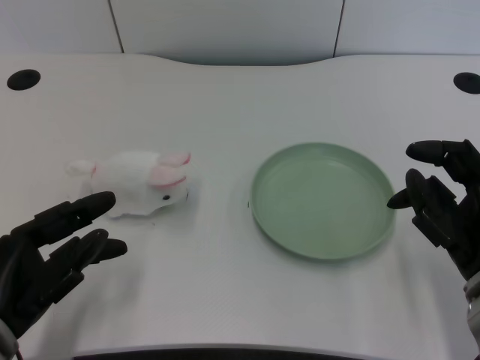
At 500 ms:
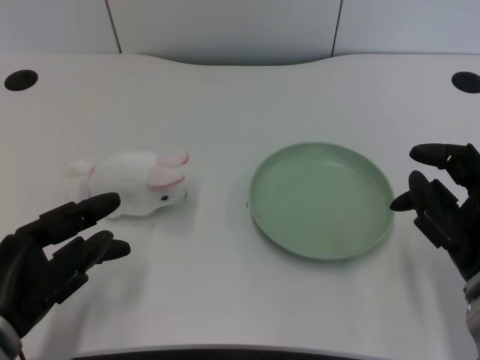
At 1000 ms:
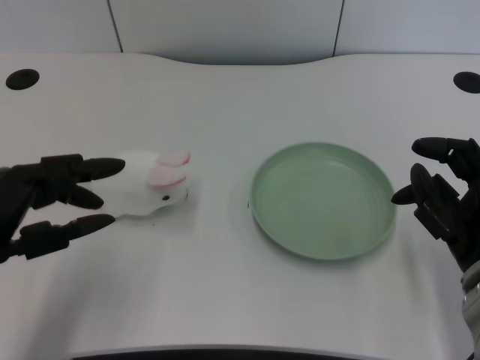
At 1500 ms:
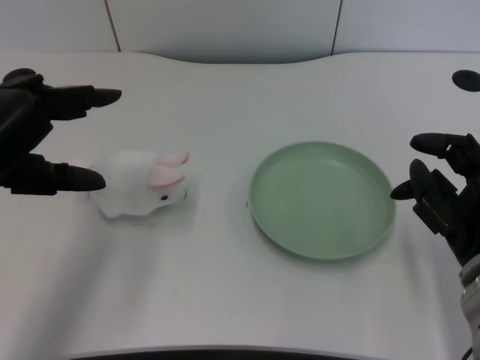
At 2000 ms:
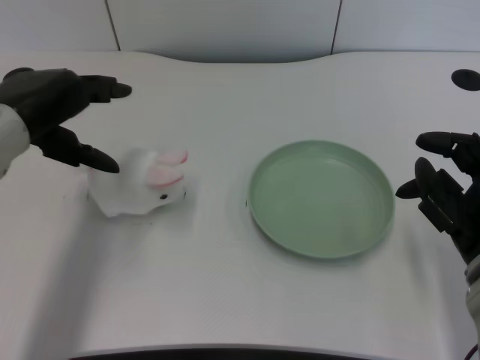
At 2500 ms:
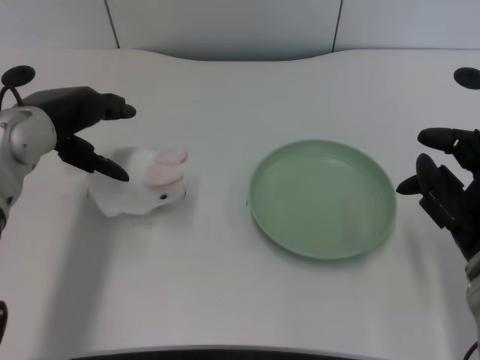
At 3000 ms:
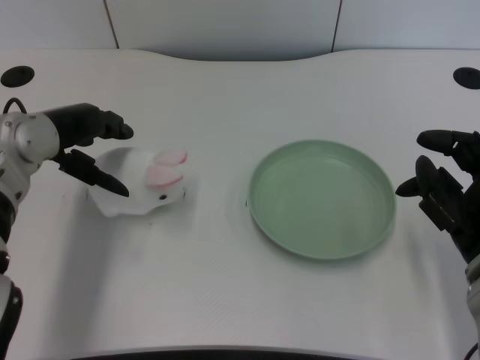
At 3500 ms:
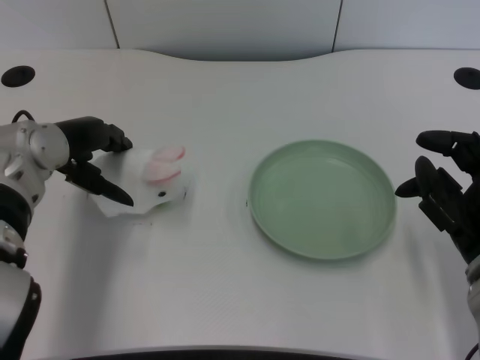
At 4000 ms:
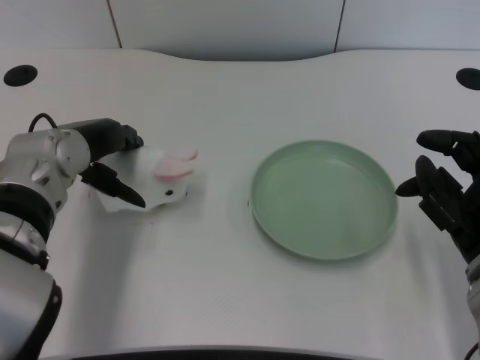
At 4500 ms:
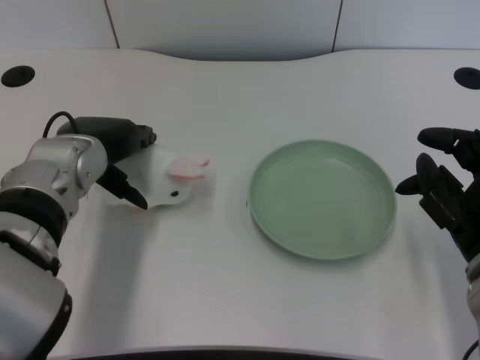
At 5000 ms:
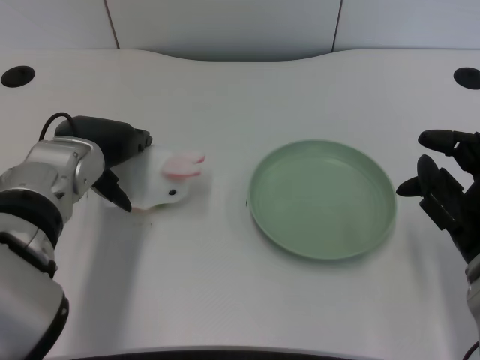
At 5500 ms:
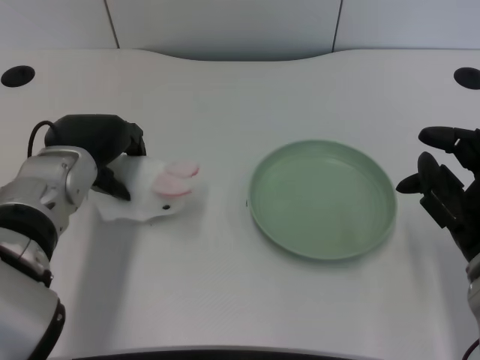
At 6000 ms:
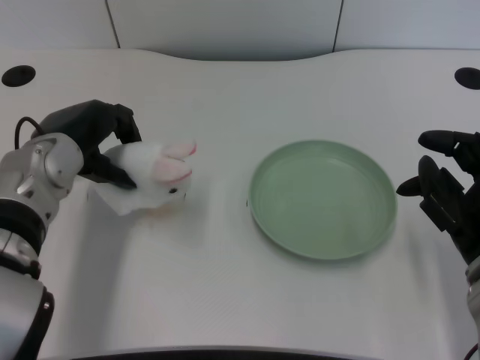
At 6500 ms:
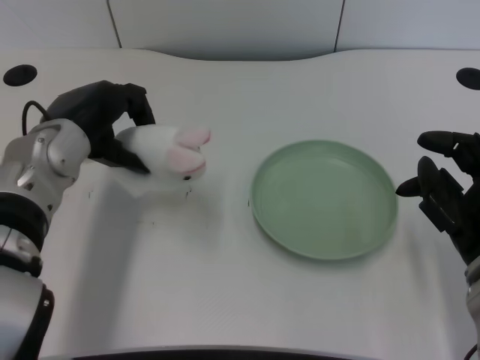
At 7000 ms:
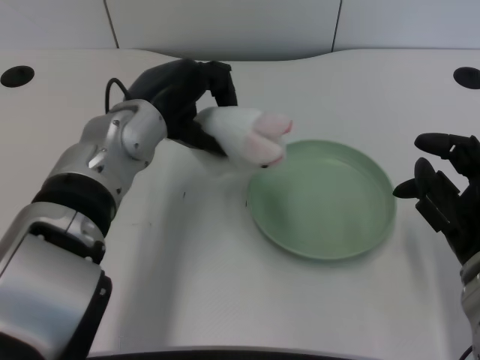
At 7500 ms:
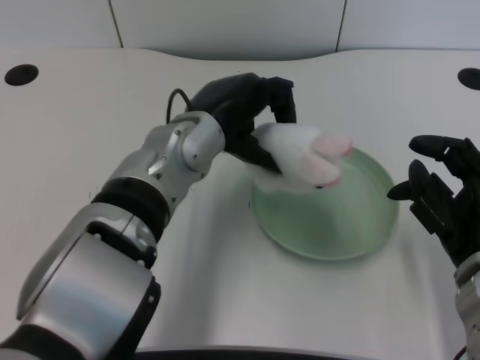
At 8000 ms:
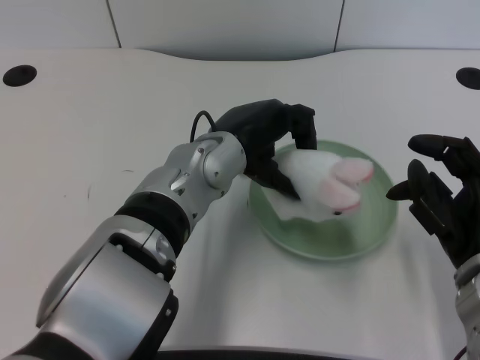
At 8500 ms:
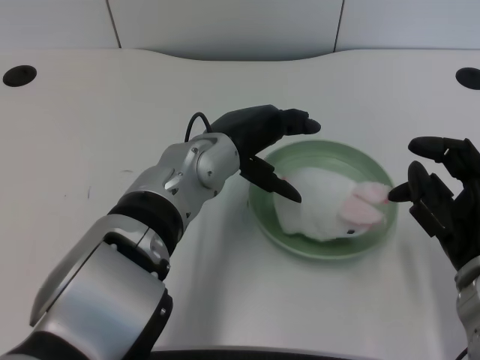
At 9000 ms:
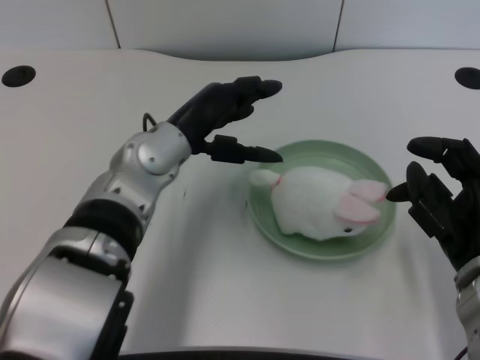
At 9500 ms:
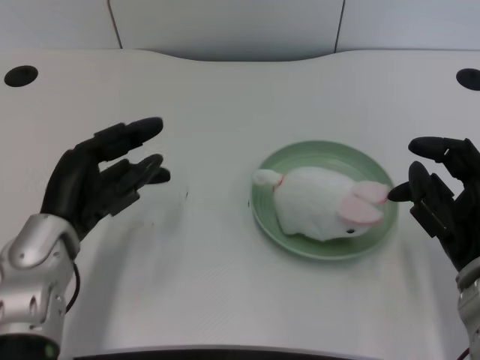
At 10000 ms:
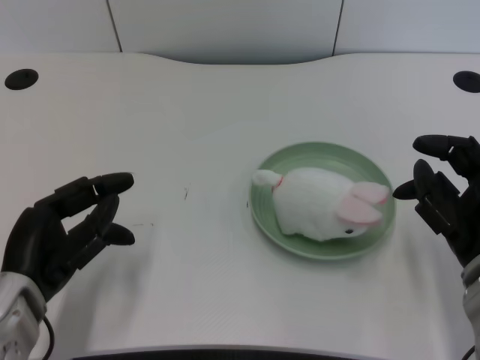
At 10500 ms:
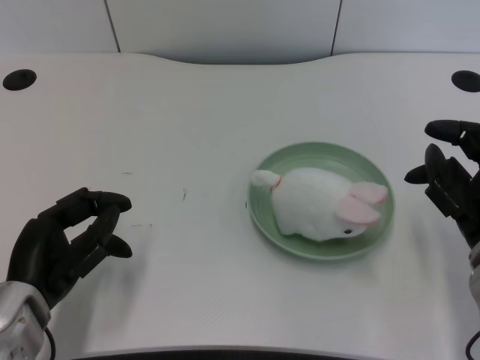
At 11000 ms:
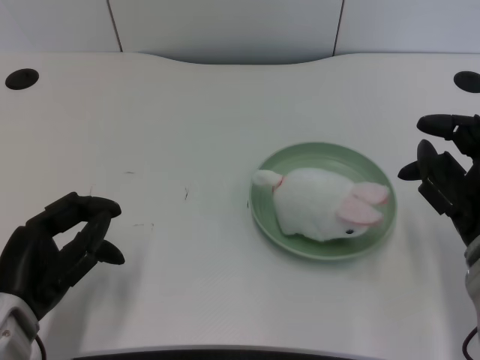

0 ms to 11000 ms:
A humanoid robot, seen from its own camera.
Task of the whole recording: pick up the rabbit doll from the table and place it on the plate.
Step, 1000 ms to 6000 ms: Grasp the rabbit doll with the left gripper.
Step, 6500 ms to 8000 ms: Place the rabbit doll into the plate with the left gripper.
2000 ms to 3500 ms: The left hand changes place by roughly 5 cm.
5500 ms to 7500 ms: The left hand travels to the right by roughly 10 cm.
9000 ms to 11000 ms: The left hand shifts about 20 cm to the left, backward and downward.

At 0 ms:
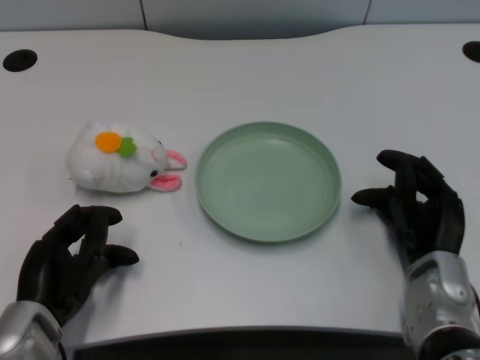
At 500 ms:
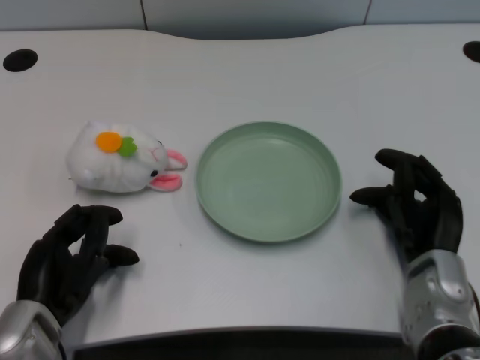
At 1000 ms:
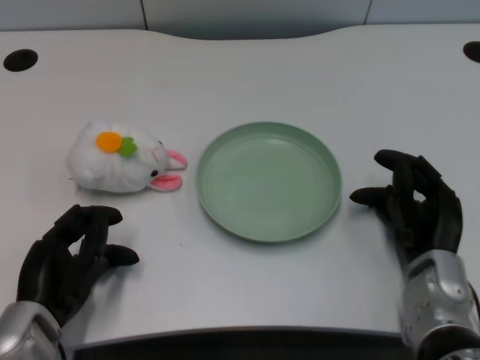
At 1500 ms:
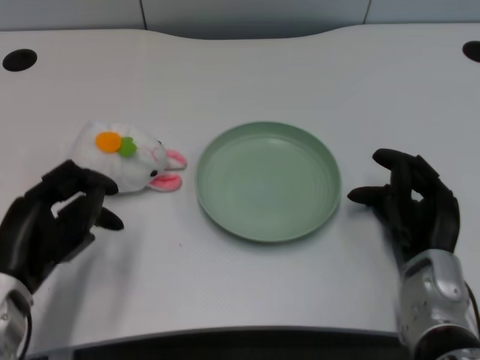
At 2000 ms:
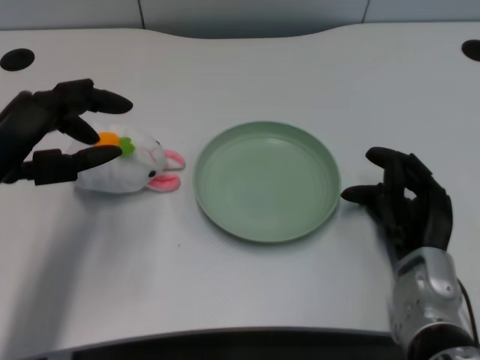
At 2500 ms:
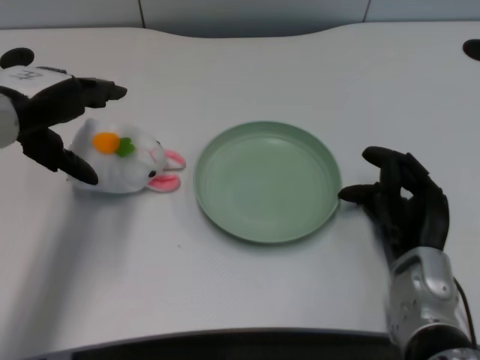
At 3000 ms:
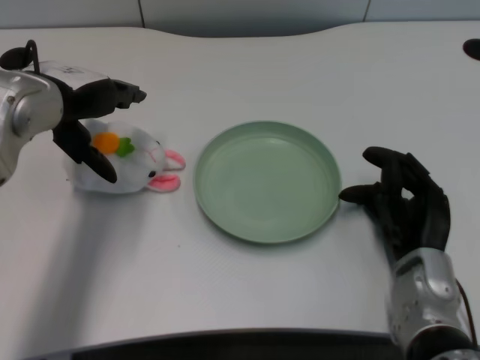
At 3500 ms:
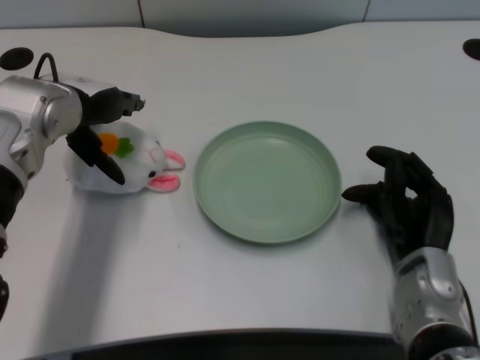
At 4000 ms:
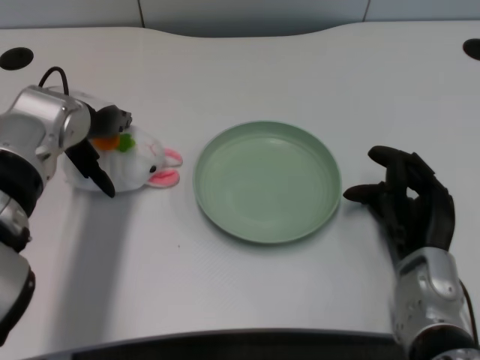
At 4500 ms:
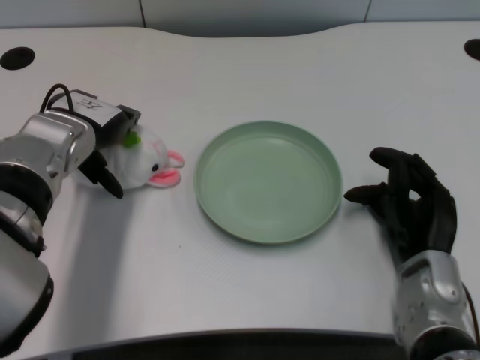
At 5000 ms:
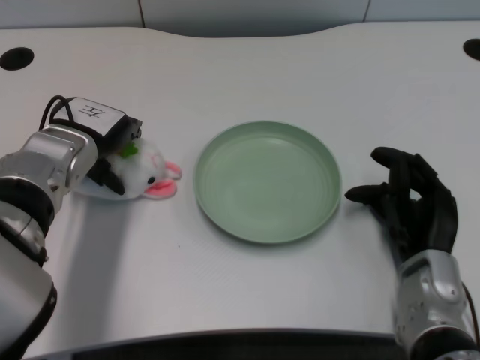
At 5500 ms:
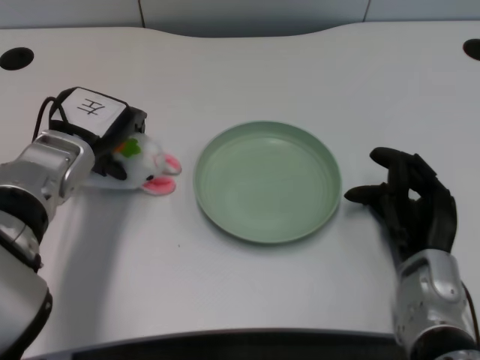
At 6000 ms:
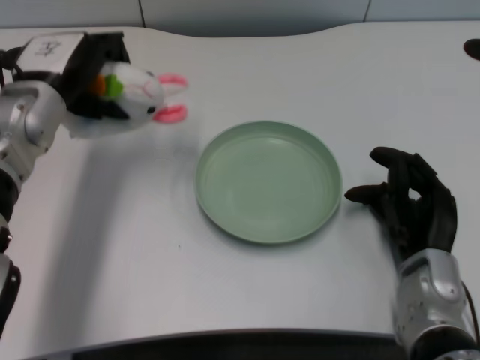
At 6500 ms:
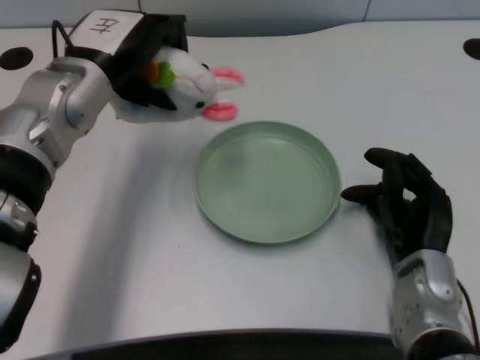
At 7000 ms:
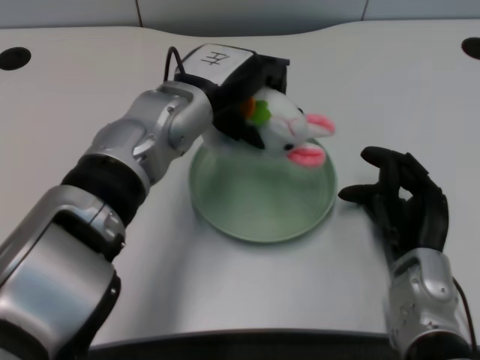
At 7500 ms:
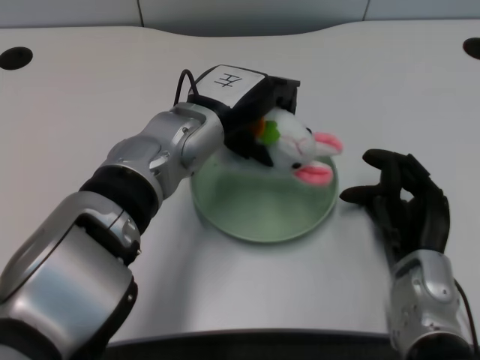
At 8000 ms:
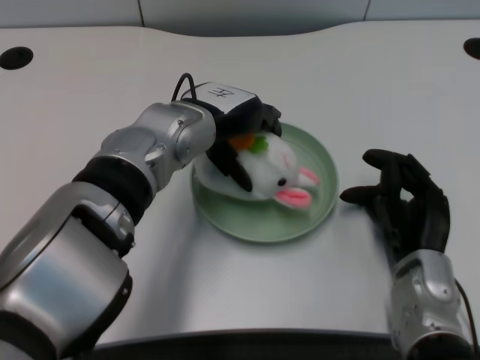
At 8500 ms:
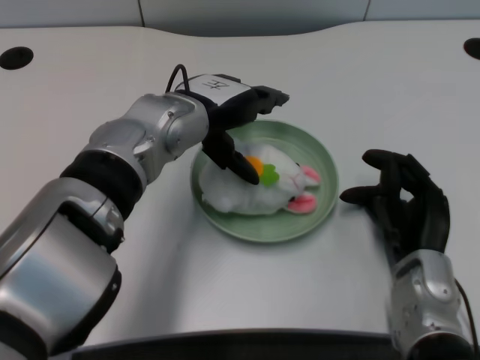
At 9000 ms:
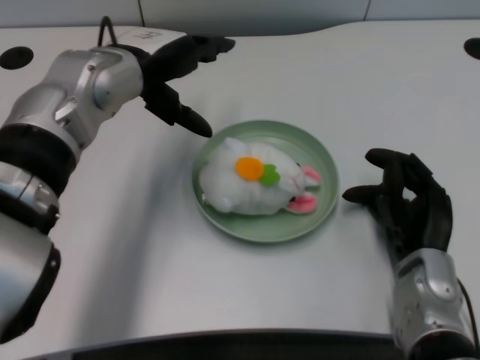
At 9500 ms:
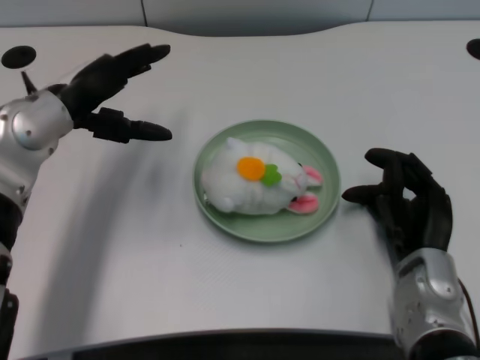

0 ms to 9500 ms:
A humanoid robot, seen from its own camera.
Task of the whole recording: pick up the rabbit doll from the table and place it on the plate.
Step, 1500 ms to 5500 ms: Grasp the rabbit doll with the left gripper.
Step, 6000 ms to 8000 ms: Place the rabbit doll into the plate with the left gripper.
2000 ms to 4000 ms: The left hand goes some 10 cm forward and to the right.
4000 ms to 5500 ms: The left hand heads downward, covering roughly 5 cm.
5500 ms to 7500 ms: The left hand moves to the right, some 15 cm.
7500 ms to 9500 ms: The left hand shifts approximately 15 cm to the left.

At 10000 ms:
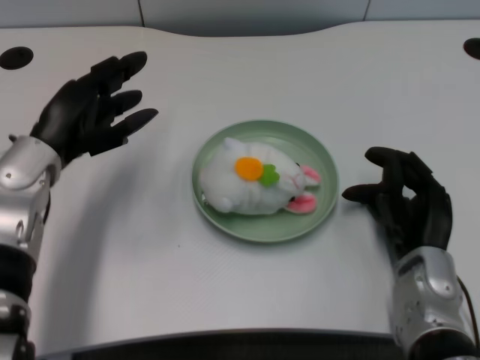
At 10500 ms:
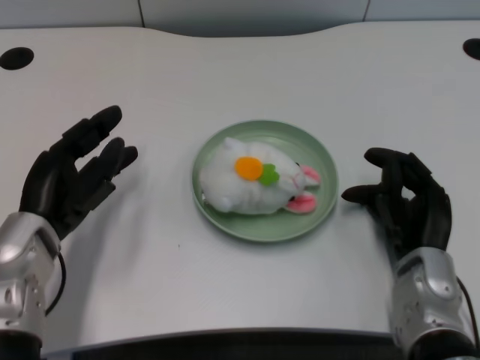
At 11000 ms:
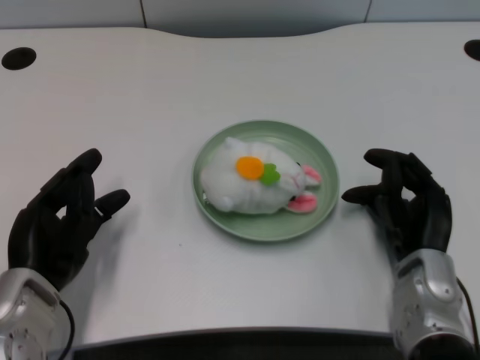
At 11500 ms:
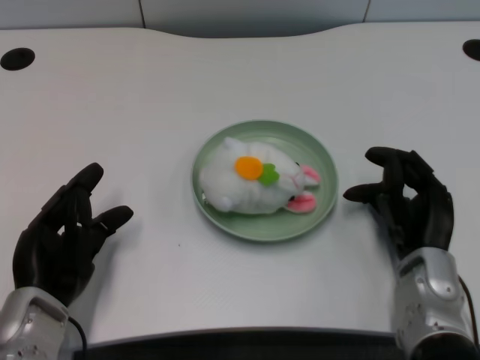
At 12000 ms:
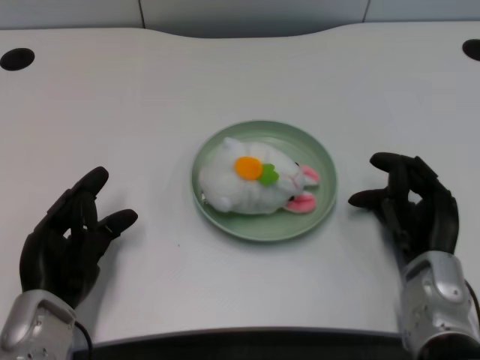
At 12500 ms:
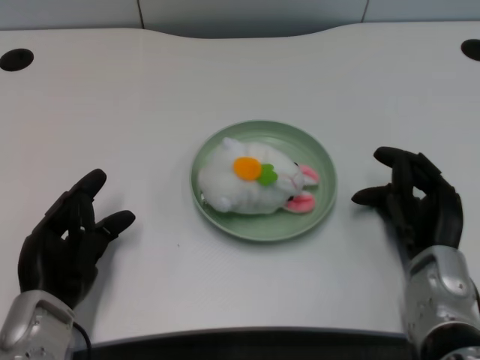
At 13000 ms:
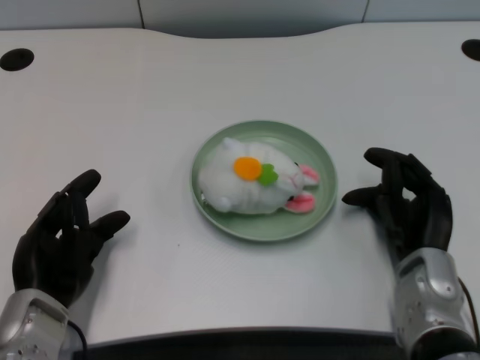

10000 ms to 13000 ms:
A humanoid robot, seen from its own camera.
Task of the whole recording: pick up the rabbit doll from the table and place it on the plate.
10000 ms to 11500 ms: The left hand travels backward and downward by about 15 cm.
11500 ms to 13000 ms: The hands make only small movements.

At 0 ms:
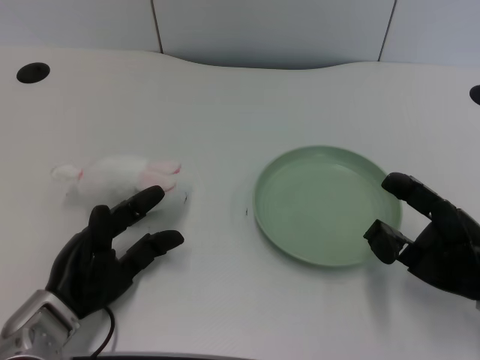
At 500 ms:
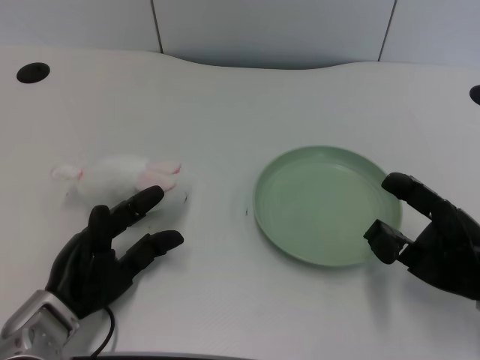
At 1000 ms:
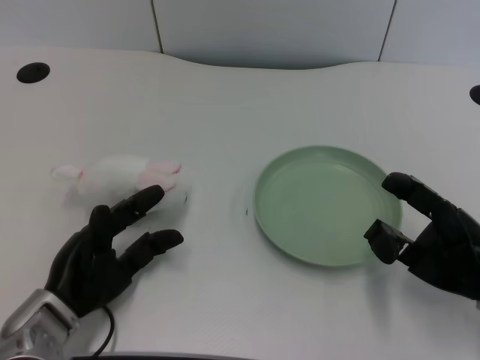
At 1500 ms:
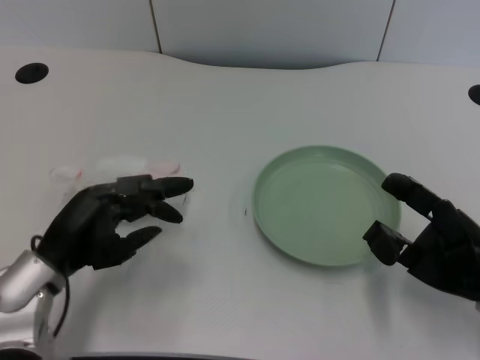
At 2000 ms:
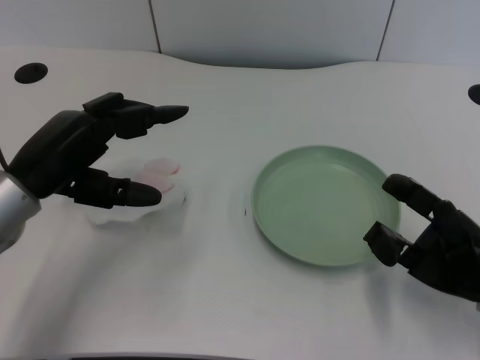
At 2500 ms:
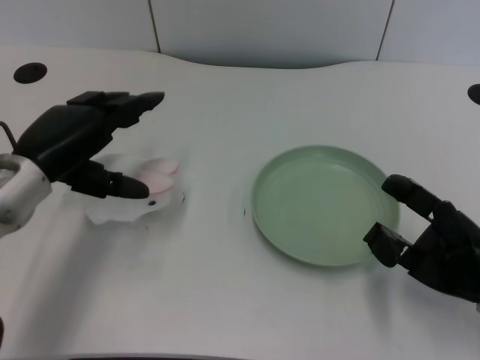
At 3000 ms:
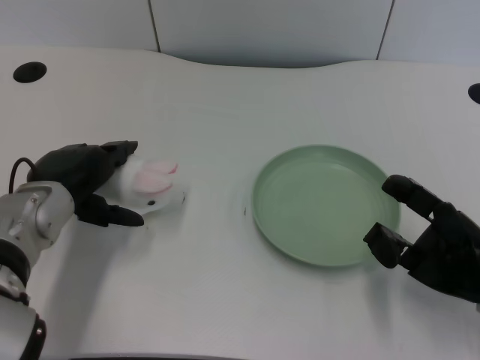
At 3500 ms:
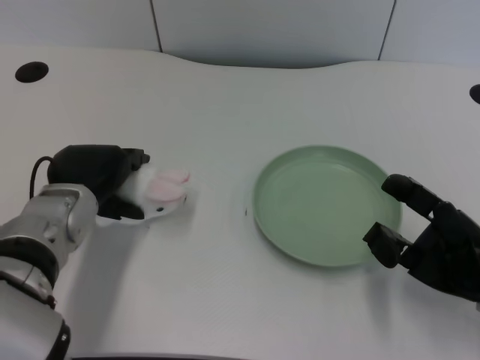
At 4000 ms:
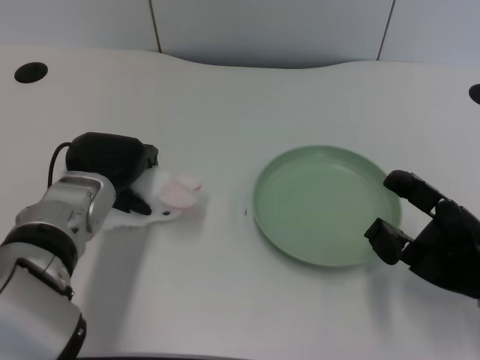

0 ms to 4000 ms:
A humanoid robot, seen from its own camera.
Task of the whole recording: pick up the rabbit doll from the table and place it on the plate.
2000 ms to 4000 ms: The left hand is displaced to the right by roughly 5 cm.
